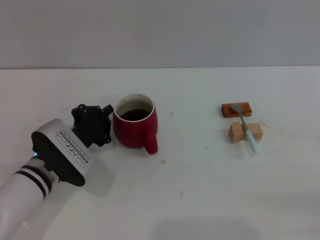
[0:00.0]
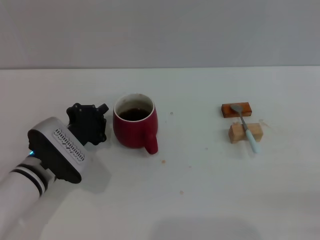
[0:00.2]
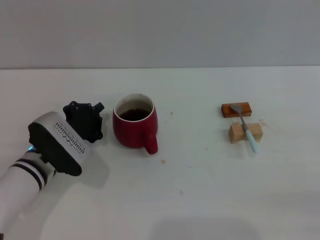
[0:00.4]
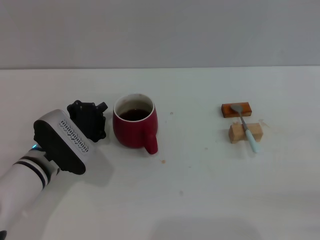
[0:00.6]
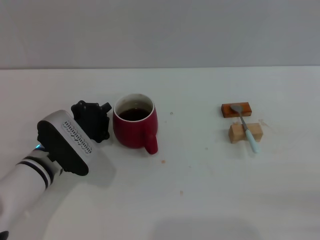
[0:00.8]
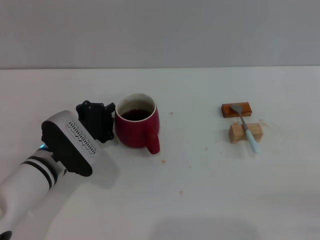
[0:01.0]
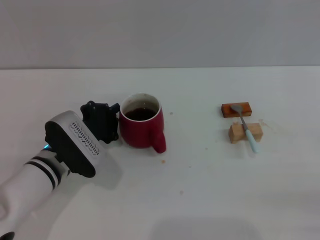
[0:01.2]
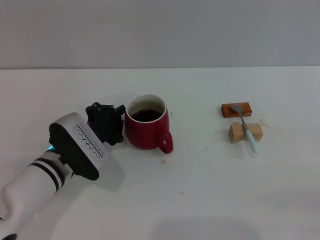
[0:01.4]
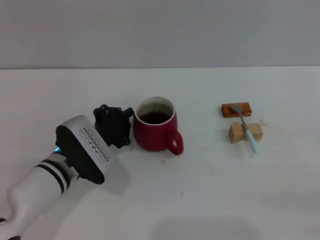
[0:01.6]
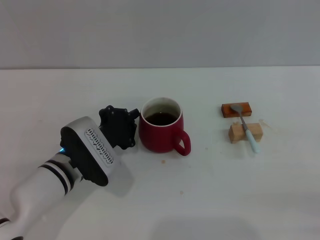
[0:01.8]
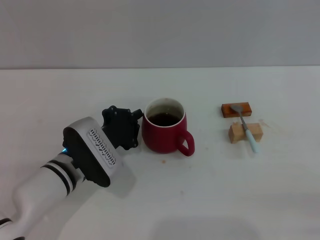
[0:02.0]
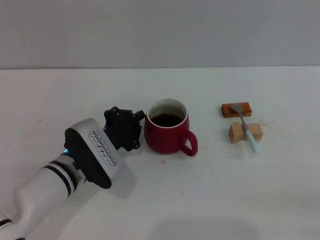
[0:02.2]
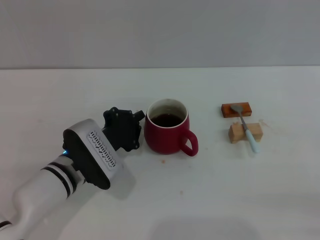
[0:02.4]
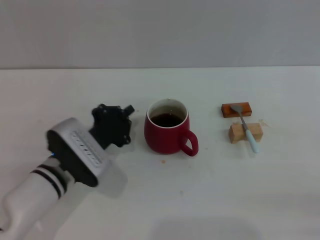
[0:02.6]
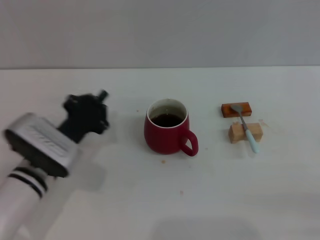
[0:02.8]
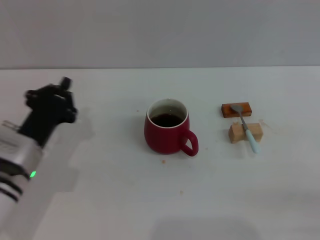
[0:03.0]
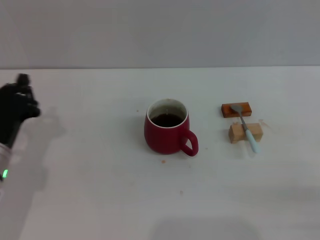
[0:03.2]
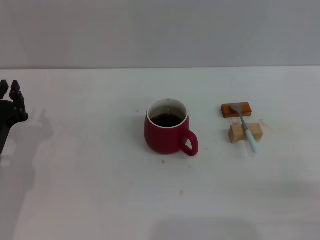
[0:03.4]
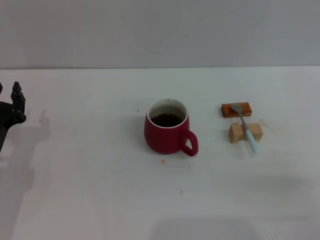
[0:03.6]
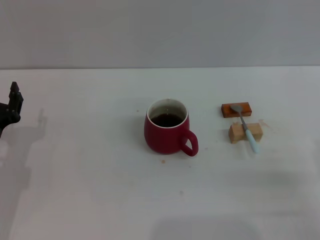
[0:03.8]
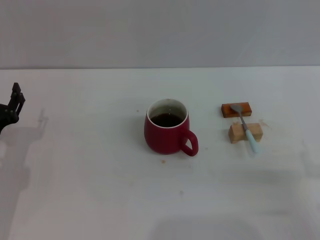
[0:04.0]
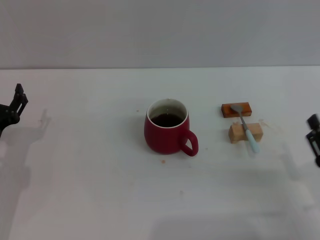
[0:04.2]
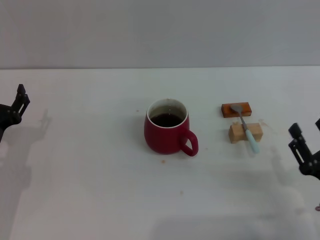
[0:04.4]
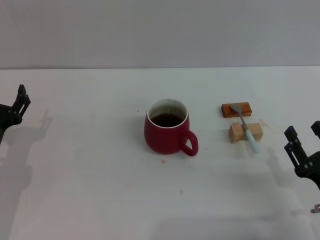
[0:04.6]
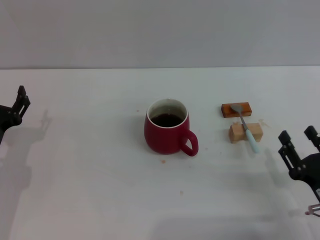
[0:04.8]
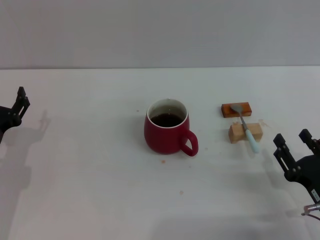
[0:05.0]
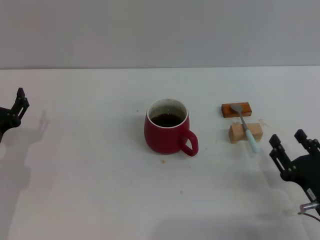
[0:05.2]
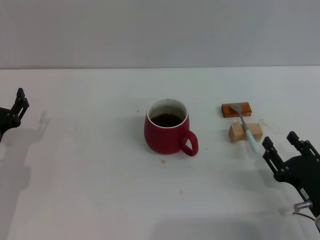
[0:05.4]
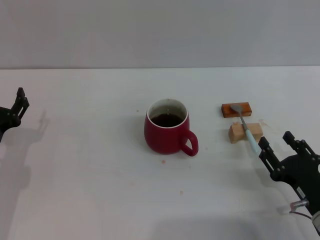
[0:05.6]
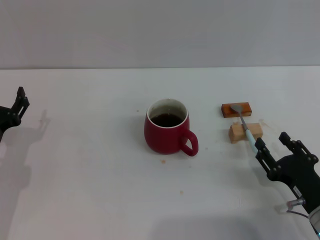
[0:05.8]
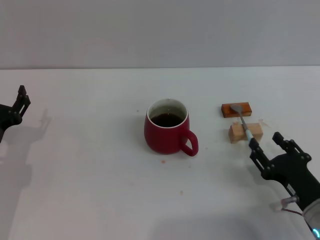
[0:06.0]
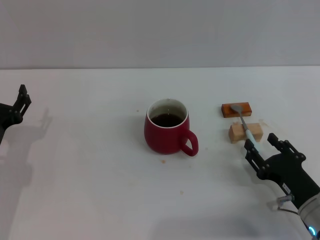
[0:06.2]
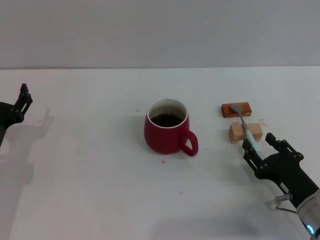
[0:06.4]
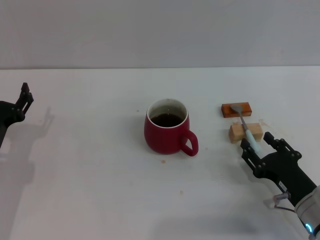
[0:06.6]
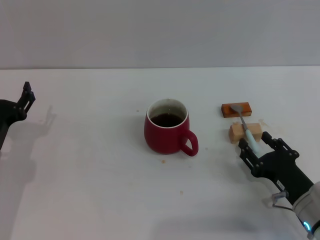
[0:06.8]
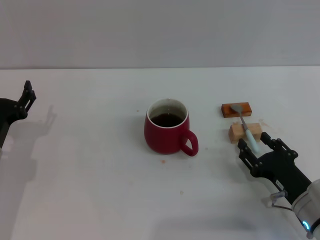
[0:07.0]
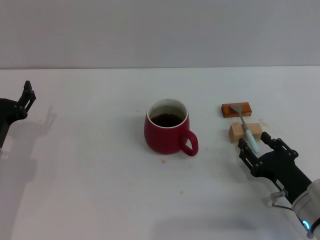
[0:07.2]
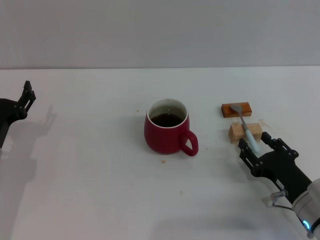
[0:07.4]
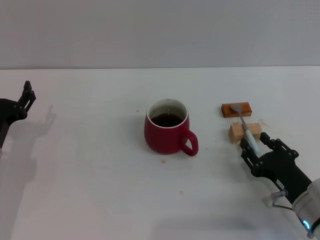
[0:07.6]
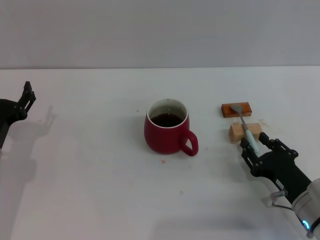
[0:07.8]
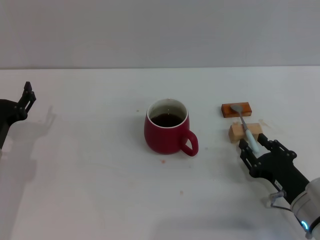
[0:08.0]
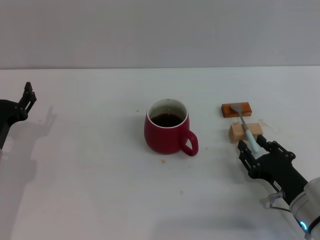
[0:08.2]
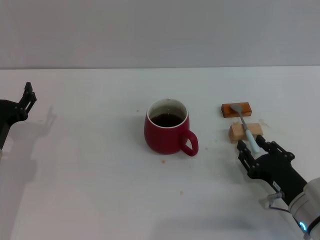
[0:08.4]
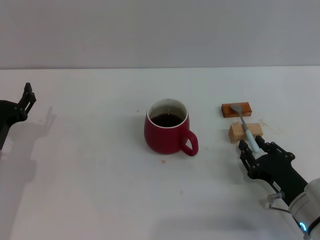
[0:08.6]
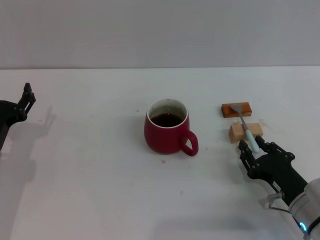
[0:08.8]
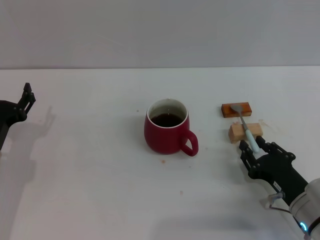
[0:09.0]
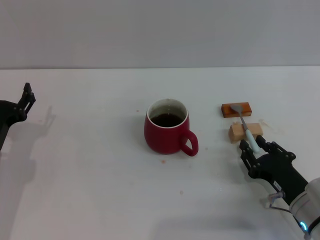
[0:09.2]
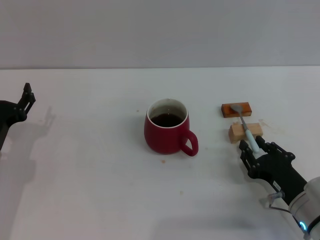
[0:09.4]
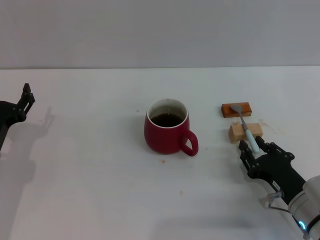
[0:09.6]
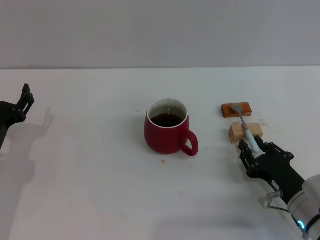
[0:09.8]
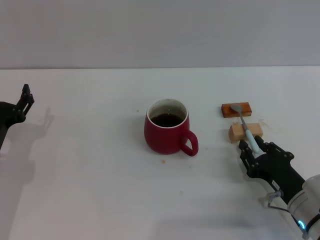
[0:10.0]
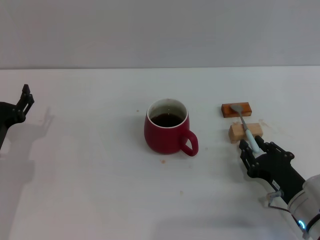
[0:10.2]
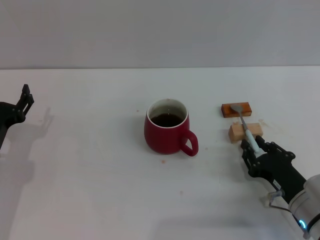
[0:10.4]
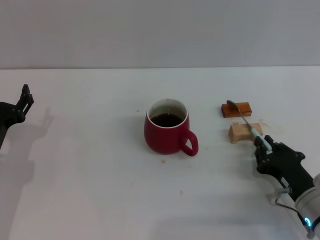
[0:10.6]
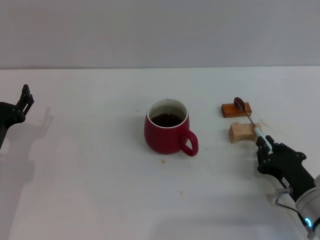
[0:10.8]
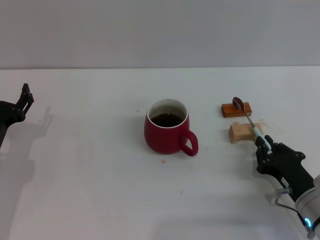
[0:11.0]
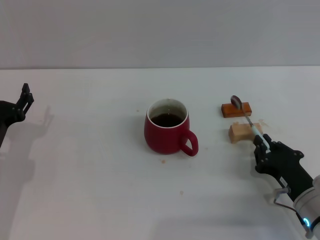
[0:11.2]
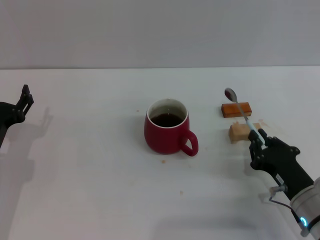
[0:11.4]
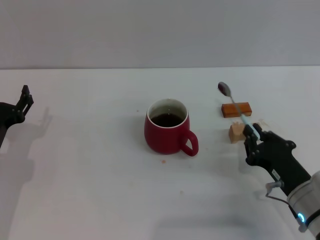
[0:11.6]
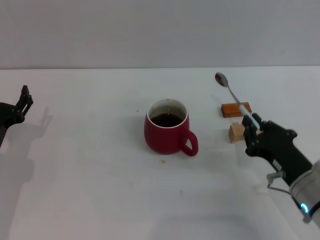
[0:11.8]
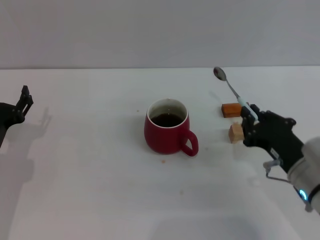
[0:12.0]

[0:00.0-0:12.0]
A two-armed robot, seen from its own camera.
Task of the whole recording: Move the red cup to the center, lift the blue spoon, stir it three times in the cup, and put the spoon into the cup.
Step, 0:00.0 to 0:02.6: Move the cup with coffee to the center of view with the left gripper.
Step, 0:02.8 to 0:11.8: Pick up the spoon with the right gripper.
0:00.0 to 0:01.6: The grippers stay close to where they were, moving slightly.
0:01.6 to 0:03.0: The left gripper travels to the left by some 5 cm.
0:03.0 to 0:04.4: The two grippers go approximately 5 cm to the left. The left gripper opens.
0:04.4 to 0:06.0: The grippers stay close to where they were, moving slightly.
0:06.0 to 0:07.6: There are only small adjustments of the grippers.
0:07.6 to 0:09.0: The right gripper closes.
0:09.0 to 0:10.4: Both grippers stay put.
0:10.4 to 0:12.0: The right gripper heads upward, covering about 10 cm, and closes its fingers.

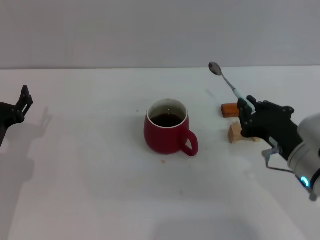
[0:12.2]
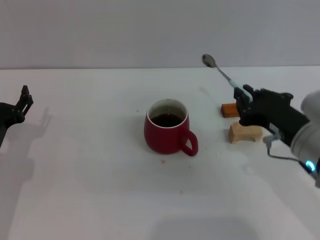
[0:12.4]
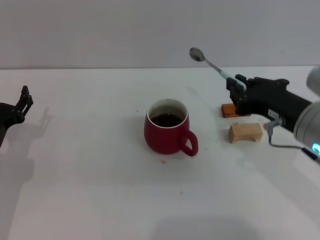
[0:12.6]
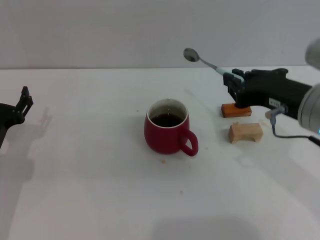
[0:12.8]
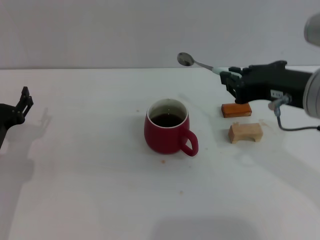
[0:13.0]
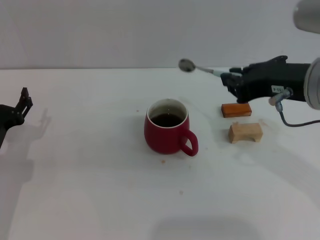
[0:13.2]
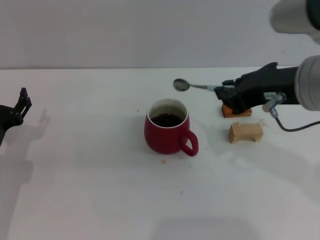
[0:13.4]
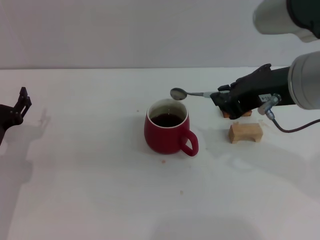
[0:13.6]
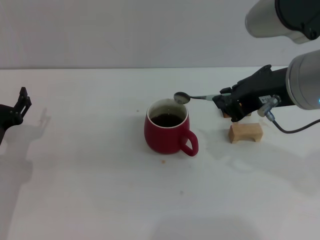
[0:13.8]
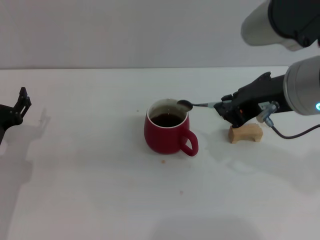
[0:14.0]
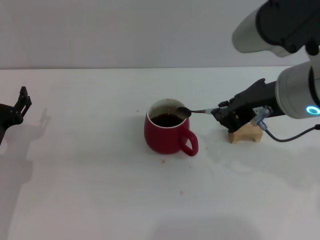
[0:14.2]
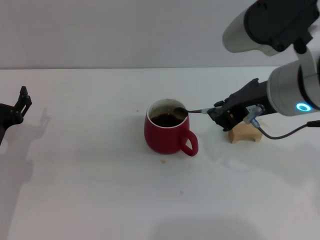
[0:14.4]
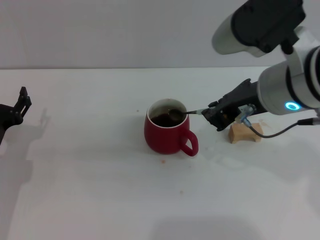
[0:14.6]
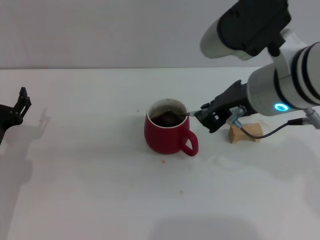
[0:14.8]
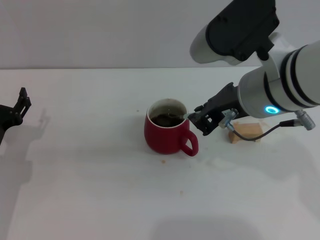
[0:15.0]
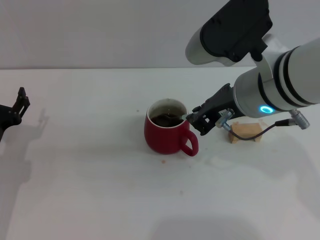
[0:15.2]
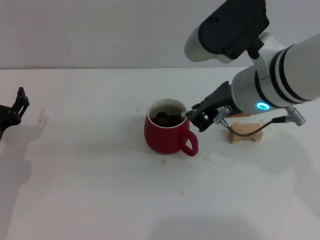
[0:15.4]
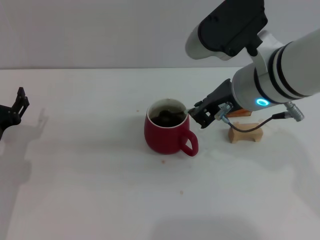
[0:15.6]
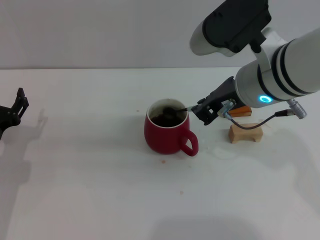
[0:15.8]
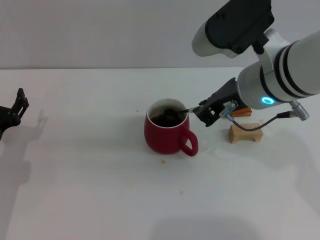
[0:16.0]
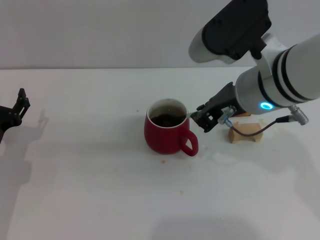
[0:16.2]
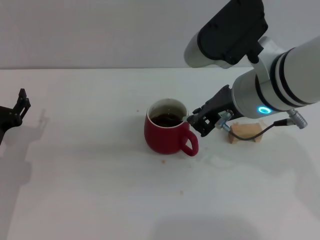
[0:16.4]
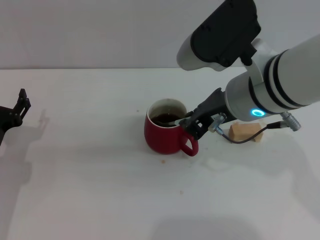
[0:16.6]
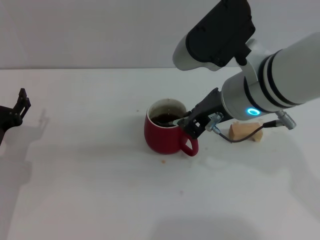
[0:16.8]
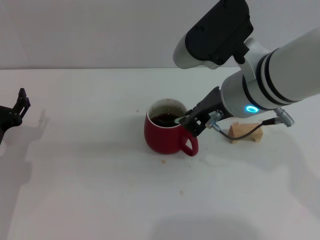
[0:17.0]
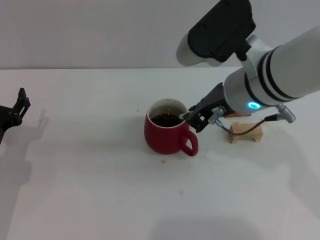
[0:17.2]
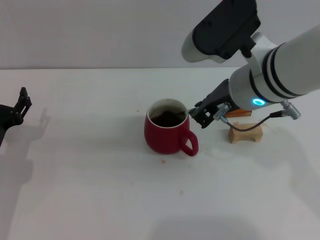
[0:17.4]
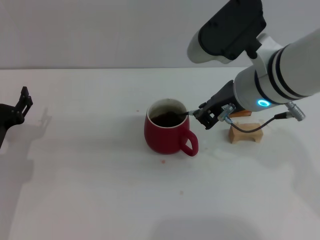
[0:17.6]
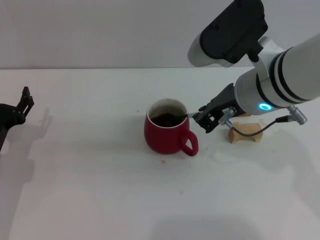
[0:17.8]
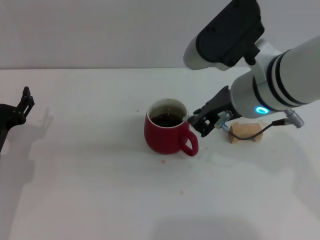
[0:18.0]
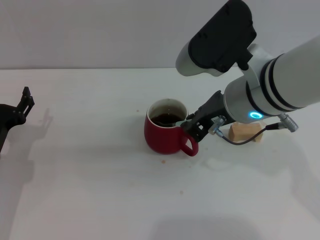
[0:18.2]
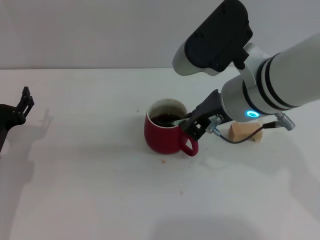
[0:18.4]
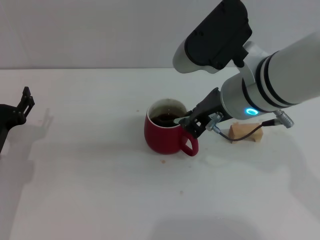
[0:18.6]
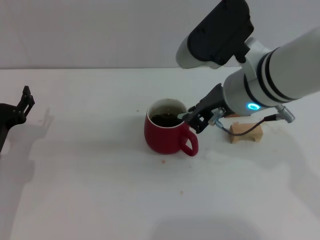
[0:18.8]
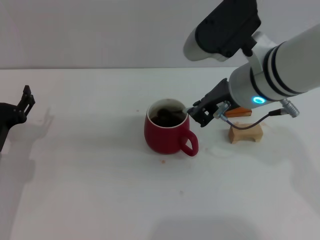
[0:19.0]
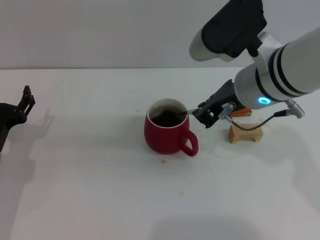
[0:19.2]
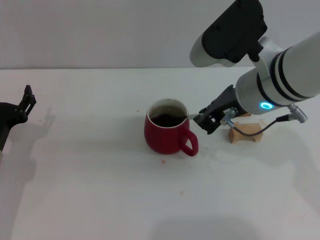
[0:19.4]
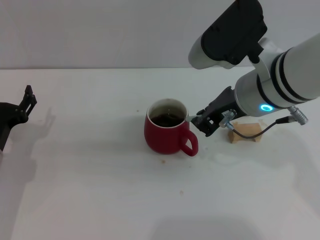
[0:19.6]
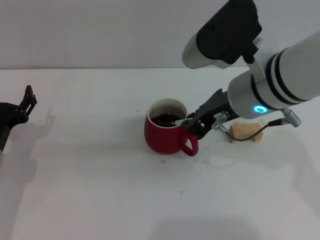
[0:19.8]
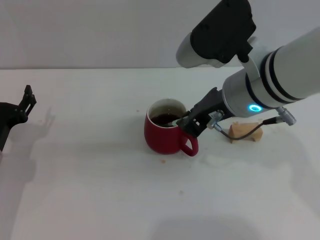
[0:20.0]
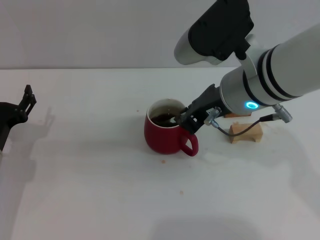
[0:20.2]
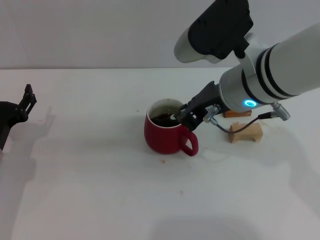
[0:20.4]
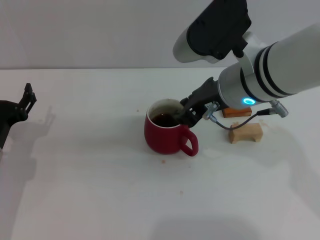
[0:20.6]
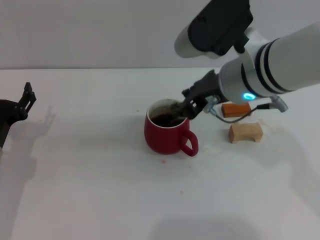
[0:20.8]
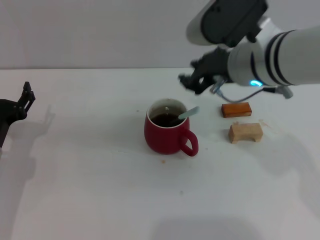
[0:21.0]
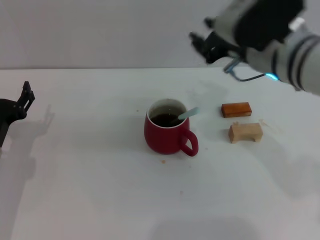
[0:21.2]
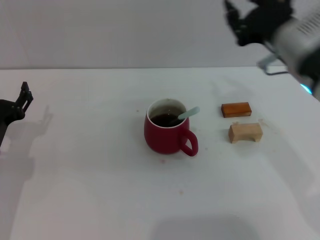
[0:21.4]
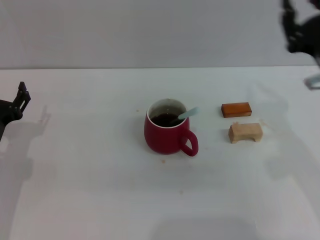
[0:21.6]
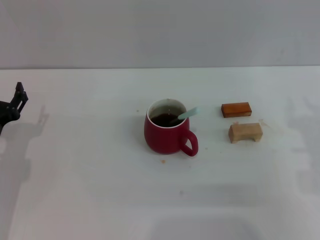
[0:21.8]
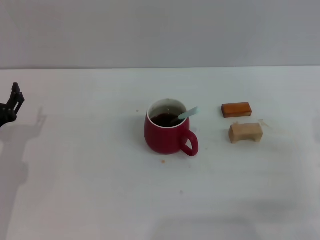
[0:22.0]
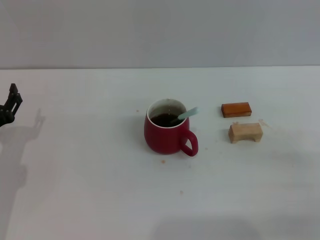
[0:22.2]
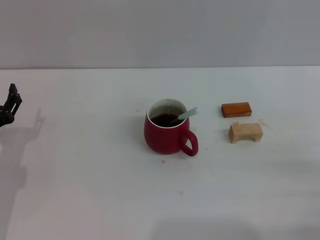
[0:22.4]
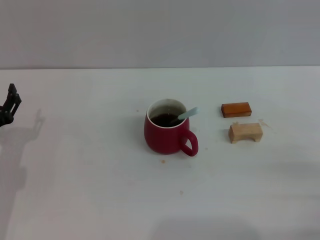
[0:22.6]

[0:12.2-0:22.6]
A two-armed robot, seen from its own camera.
Task of the whole recording: Move the red cup to the center, lift the blue spoon, stir it three times in the cup, and put the spoon into the cup.
Step, 0:12.2 to 0:20.8: Stir the coffee in the cup with the right gripper.
0:12.2 to 0:13.6: The right gripper is displaced upward by about 15 cm.
0:13.6 to 0:15.2: The right gripper shifts by roughly 5 cm.
0:15.2 to 0:19.6: There are only small adjustments of the grippers.
0:19.6 to 0:21.2: The right gripper opens up.
0:21.2 to 0:22.6: The right gripper moves to the right, downward and backward, about 30 cm, and opens.
